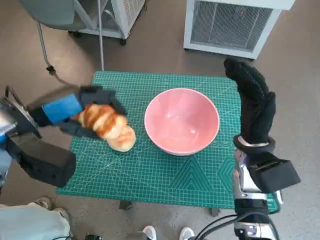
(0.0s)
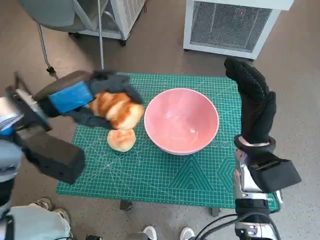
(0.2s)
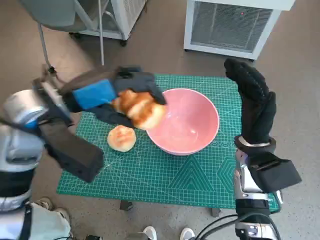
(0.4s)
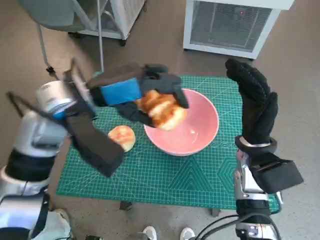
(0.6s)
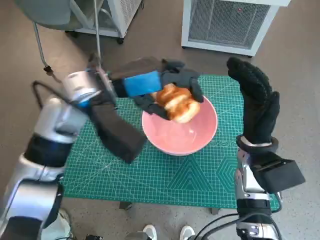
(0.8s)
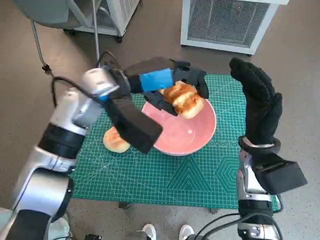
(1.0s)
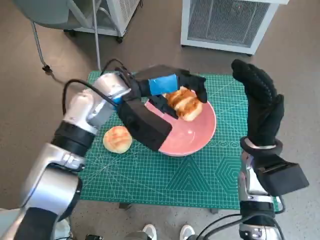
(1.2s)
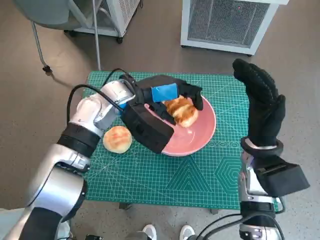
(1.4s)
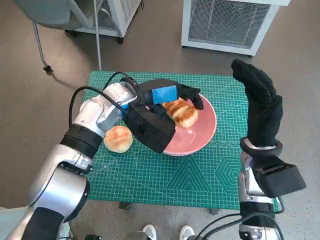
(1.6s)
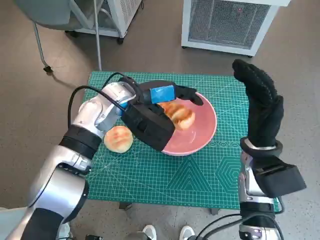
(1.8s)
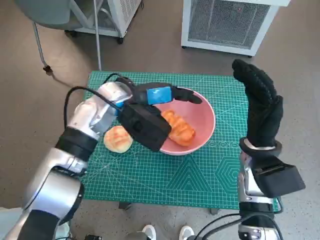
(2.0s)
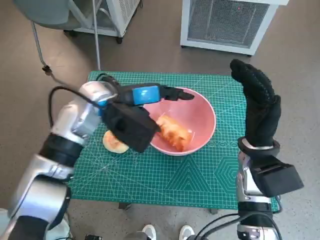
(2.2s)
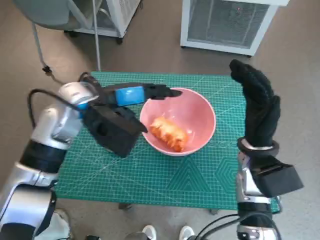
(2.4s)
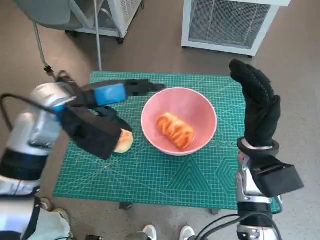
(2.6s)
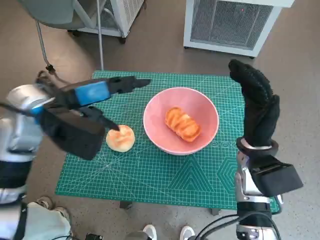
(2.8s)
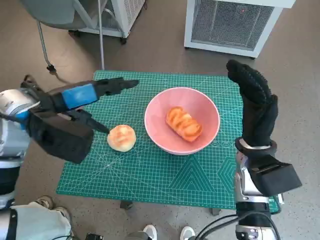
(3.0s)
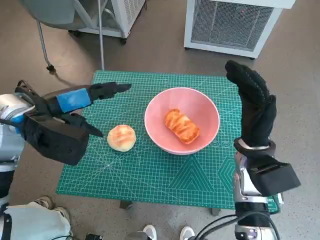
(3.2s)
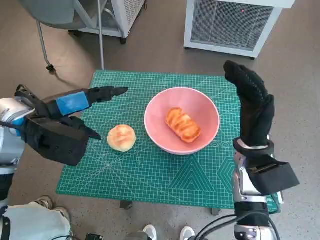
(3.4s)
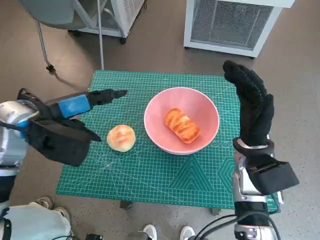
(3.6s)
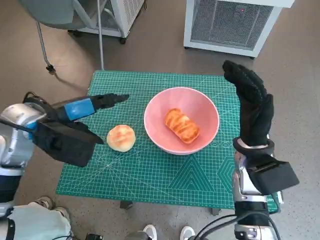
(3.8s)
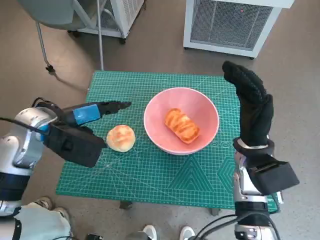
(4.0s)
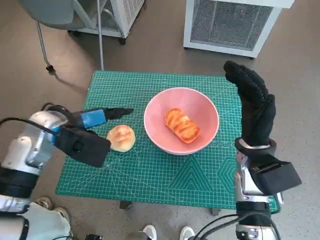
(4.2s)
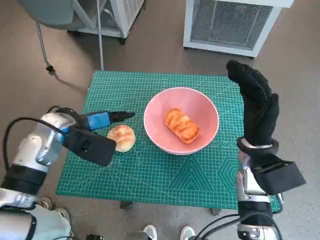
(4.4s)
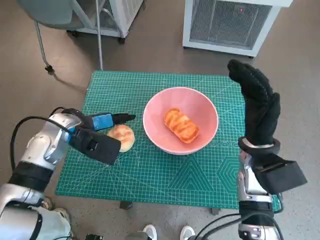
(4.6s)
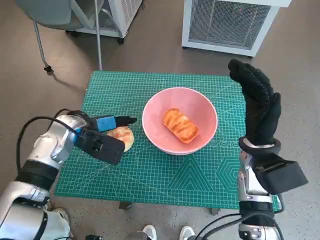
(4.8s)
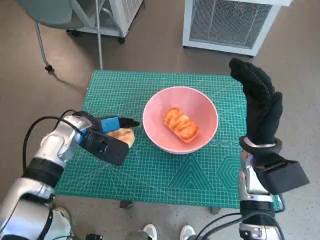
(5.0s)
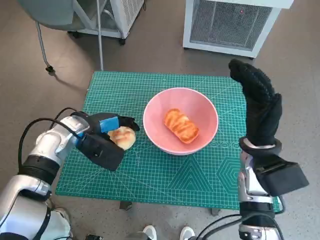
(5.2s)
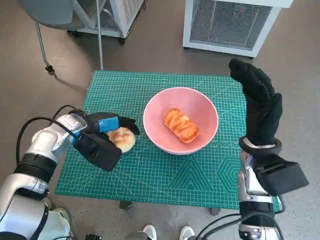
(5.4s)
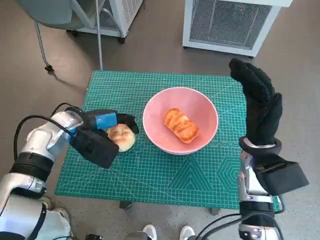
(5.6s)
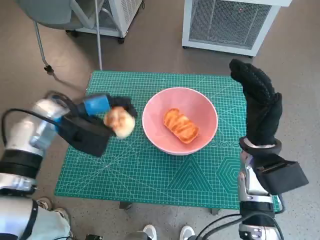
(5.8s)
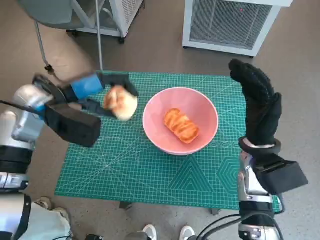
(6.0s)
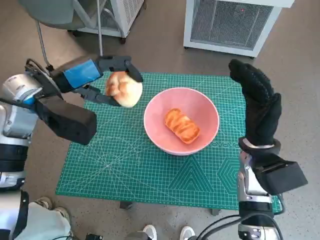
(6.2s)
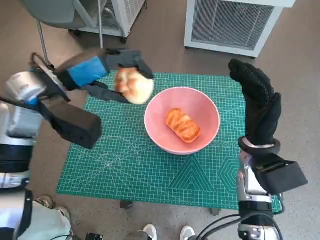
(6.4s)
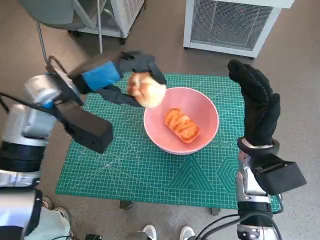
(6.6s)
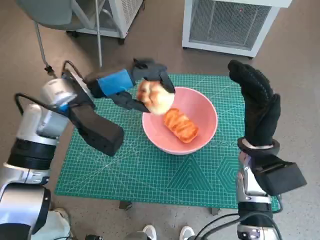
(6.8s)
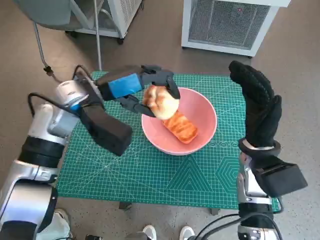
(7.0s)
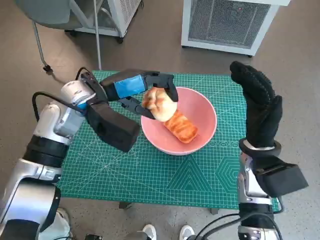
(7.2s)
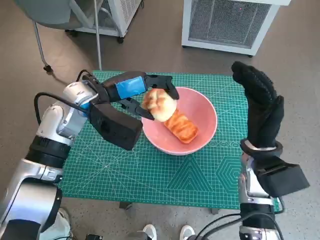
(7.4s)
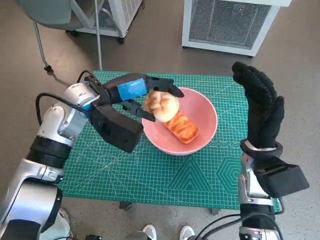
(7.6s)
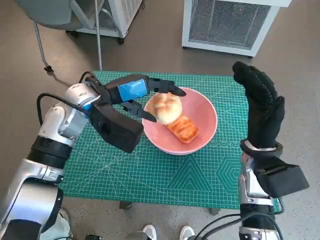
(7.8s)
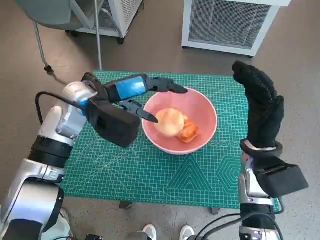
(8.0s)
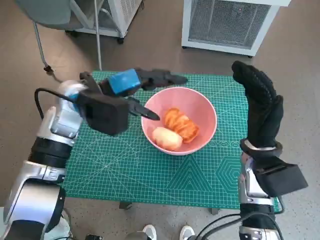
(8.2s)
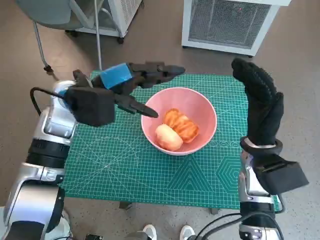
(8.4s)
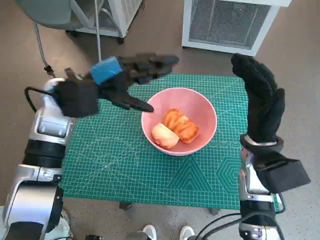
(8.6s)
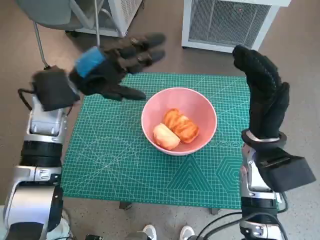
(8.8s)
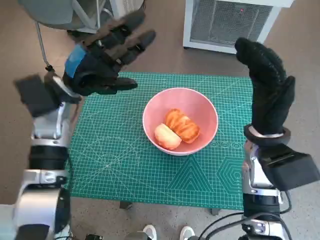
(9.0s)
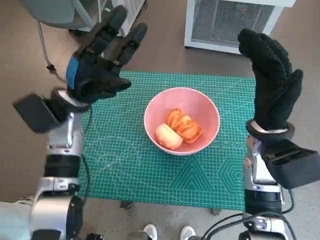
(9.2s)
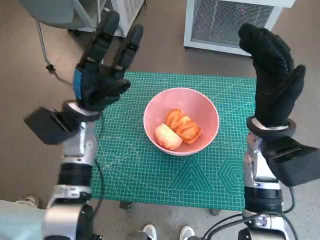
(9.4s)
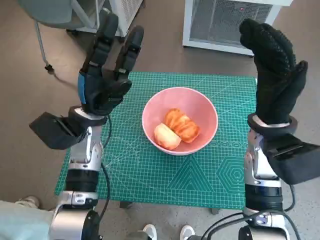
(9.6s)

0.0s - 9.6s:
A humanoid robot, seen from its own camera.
Task of the whole recording: Push the bowl to the center of the table and put the bread into the bowl.
Step, 0.0s - 2.2s: Place the long bread in pink bowl with left hand.
Step, 2.4s - 5.2s: Grasp the round bread with left hand.
Step, 5.4s - 8.2s: Place the round bread in pink bowl with left hand.
0.0s - 1.6s: The left hand goes roughly 20 cm to the right and forward.
1.6s - 3.2s: The left hand goes roughly 15 cm to the left and backward.
3.2s - 4.8s: The left hand shifts approximately 10 cm downward.
4.8s - 6.4s: The left hand heads upward, covering about 10 cm.
6.4s - 8.0s: The left hand shifts about 5 cm to the right.
8.0s - 9.6s: The left hand goes about 5 cm downward. The right hand heads upward, covering approximately 5 cm.

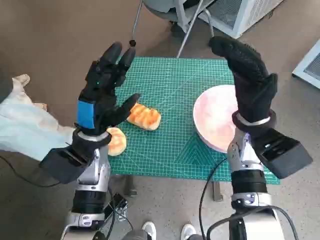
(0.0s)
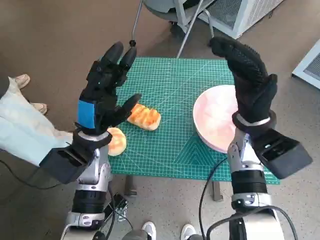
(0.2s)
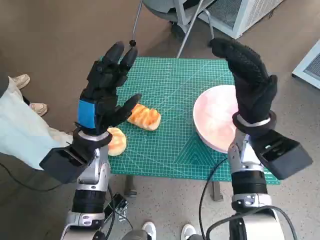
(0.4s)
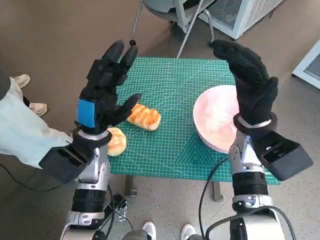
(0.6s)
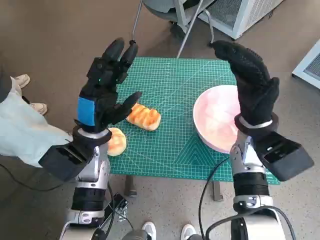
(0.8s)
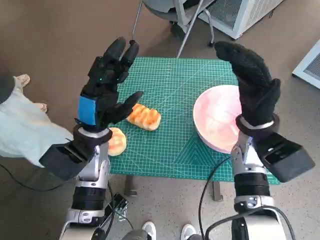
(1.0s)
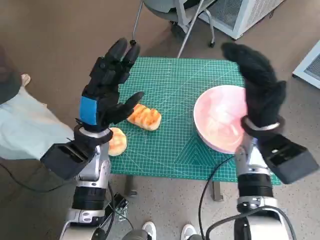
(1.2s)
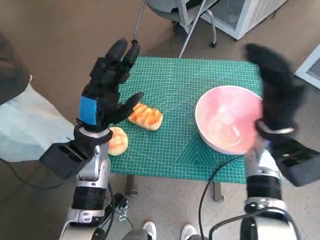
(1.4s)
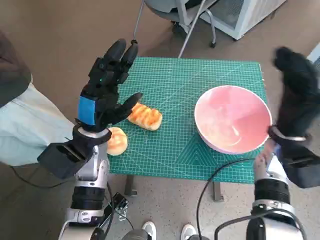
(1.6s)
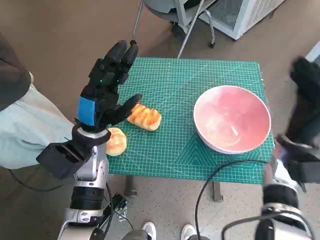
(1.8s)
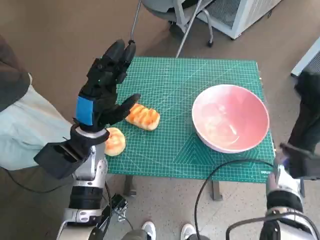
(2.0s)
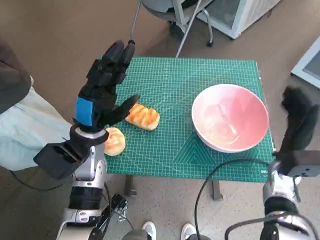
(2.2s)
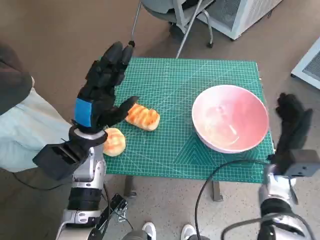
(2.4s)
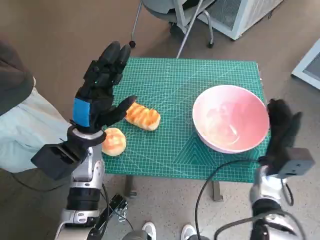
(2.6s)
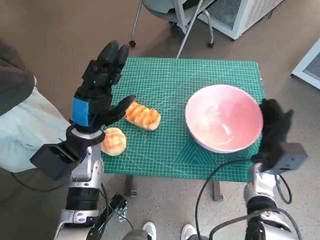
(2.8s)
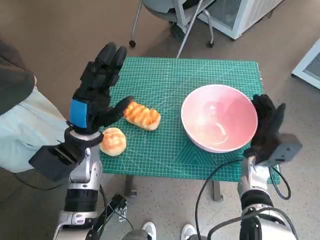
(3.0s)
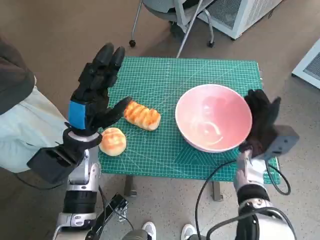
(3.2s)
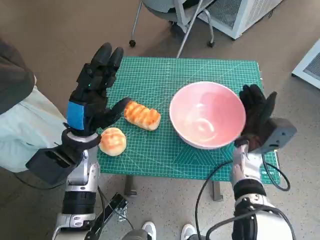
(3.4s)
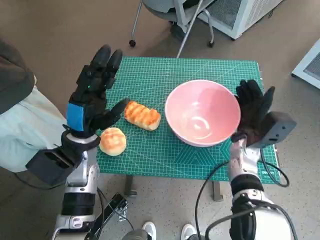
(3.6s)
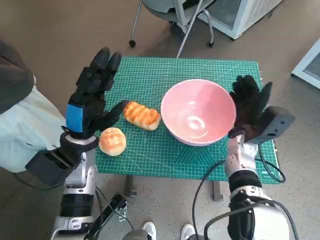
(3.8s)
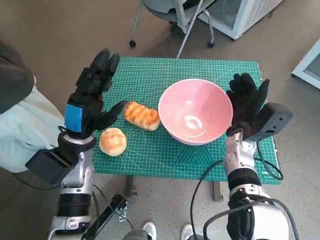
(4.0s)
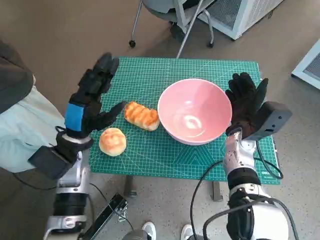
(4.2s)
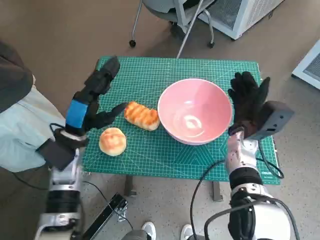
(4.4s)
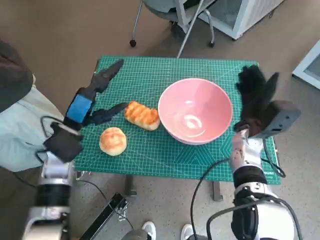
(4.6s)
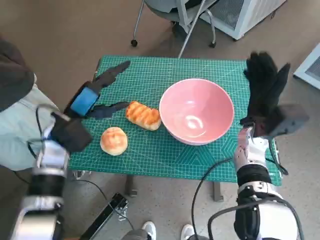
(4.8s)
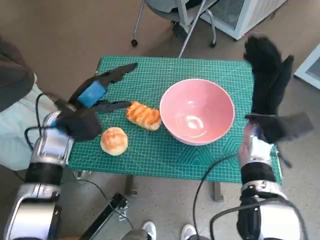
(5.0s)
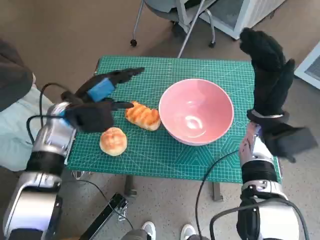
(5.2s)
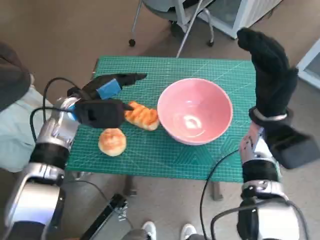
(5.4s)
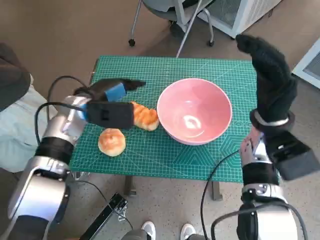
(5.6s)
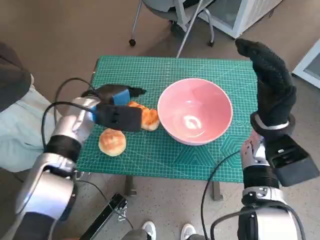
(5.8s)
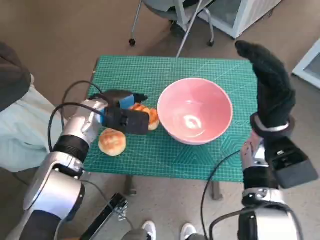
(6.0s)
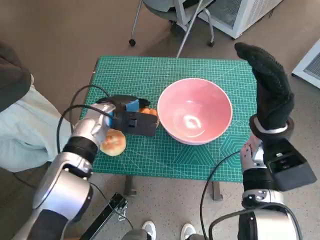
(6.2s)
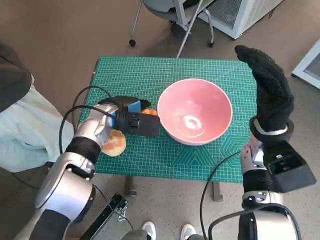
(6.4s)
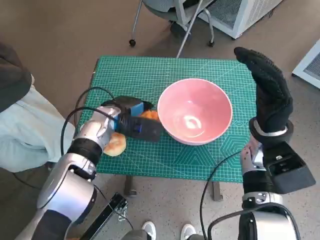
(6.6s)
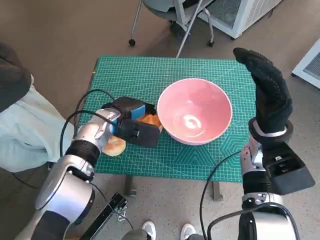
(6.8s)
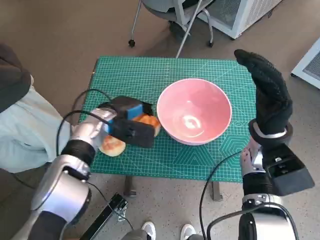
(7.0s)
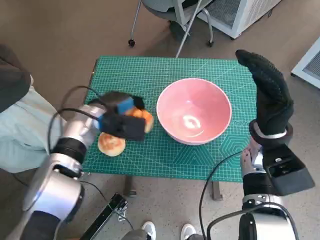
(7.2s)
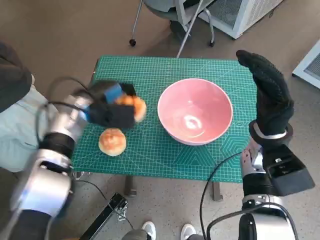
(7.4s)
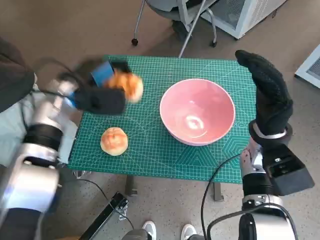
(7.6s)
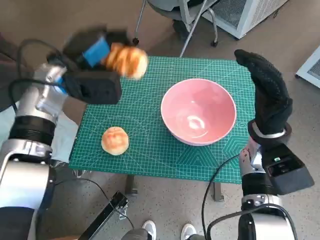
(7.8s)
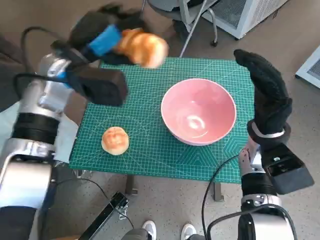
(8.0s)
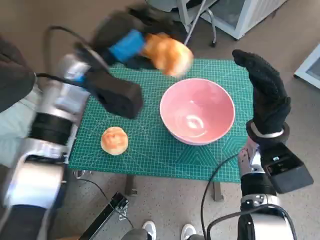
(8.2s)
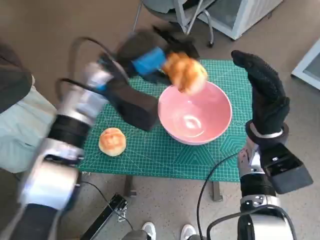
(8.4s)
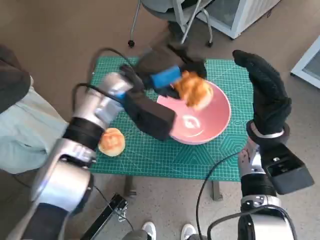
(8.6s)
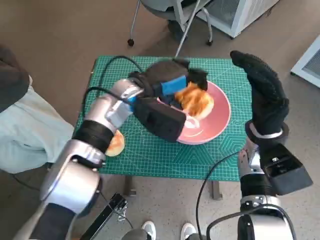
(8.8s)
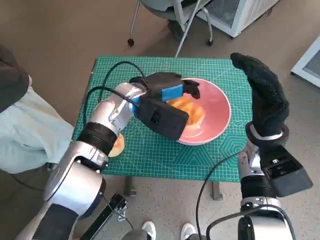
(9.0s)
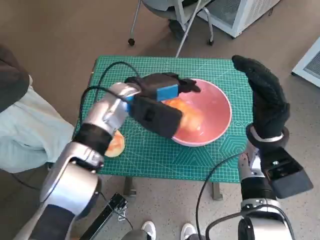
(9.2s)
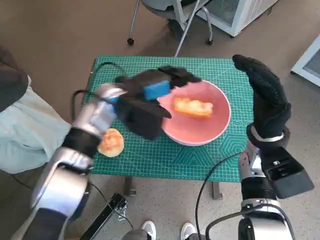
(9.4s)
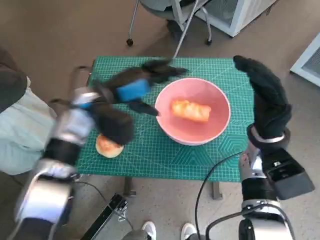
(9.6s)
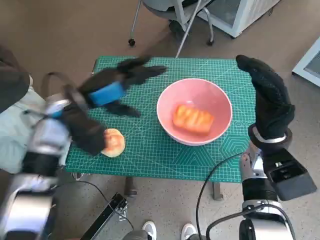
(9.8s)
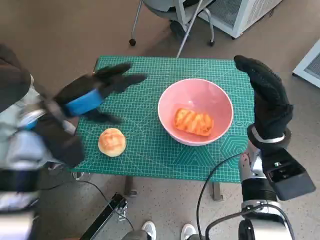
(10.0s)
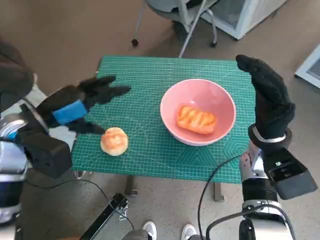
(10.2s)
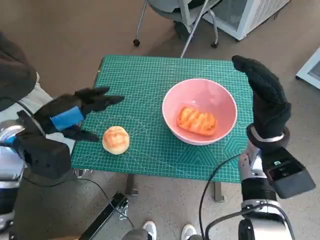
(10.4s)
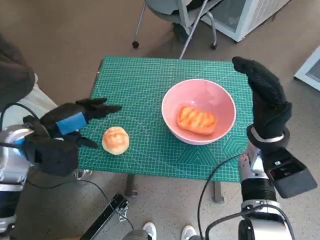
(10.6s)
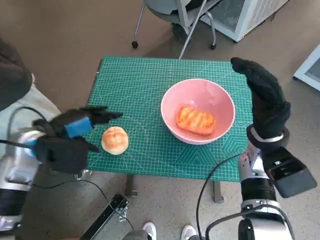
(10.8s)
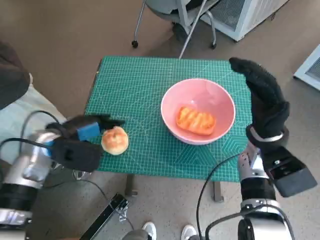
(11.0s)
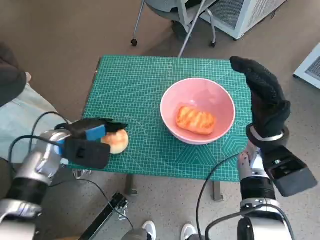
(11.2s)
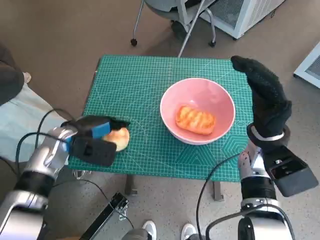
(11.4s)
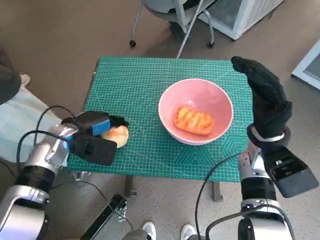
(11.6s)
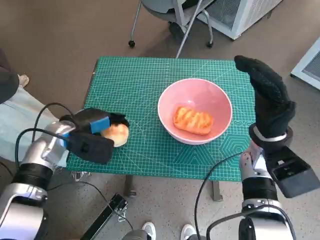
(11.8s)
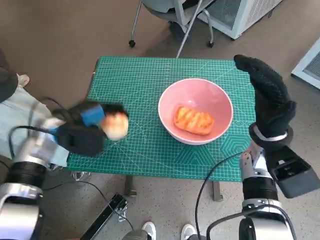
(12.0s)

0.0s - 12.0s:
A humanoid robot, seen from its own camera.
Task of the whole recording: Push the bowl to the center of the table and put the bread into the bowl.
Step, 0.0s - 4.4s: Move the pink bowl to the center of table with right hand.
Step, 4.6s - 6.8s: Grasp the long bread with left hand.
Step, 7.0s - 9.0s: Place the long bread in pink bowl with left hand.
Step, 9.2s - 11.2s: Grasp the round bread with left hand.
1.6s - 3.0s: The right hand is displaced downward by some 10 cm.
3.0s - 4.4s: The right hand shifts by roughly 10 cm.
4.4s - 6.0s: The right hand moves upward, about 5 cm; the left hand is displaced forward by approximately 10 cm.
6.0s - 7.6s: The left hand changes place by roughly 5 cm.
7.6s - 9.0s: The left hand is displaced to the right by some 15 cm.
9.0s - 10.4s: The left hand travels to the left and backward by about 20 cm.
10.4s - 12.0s: The left hand heads downward, covering about 5 cm.
